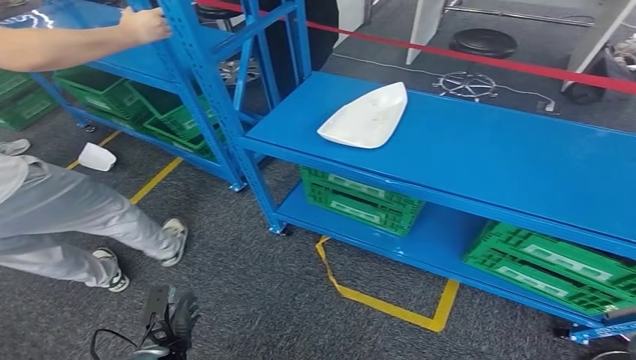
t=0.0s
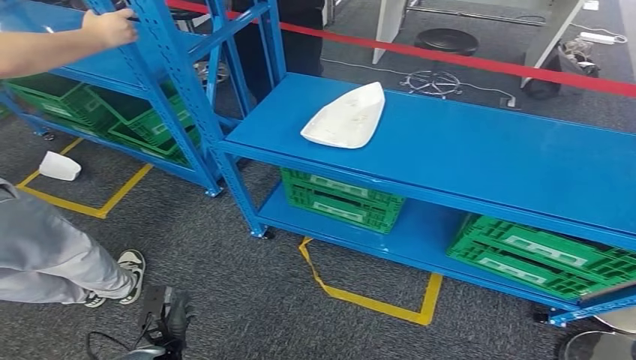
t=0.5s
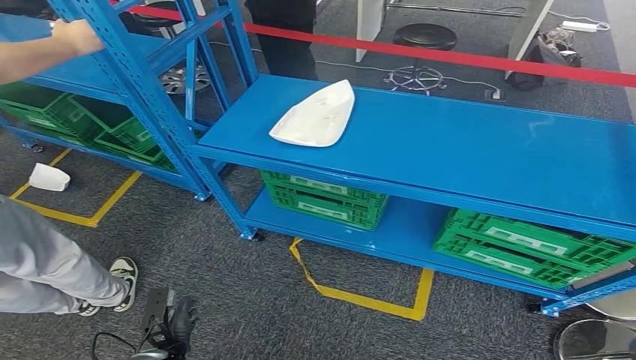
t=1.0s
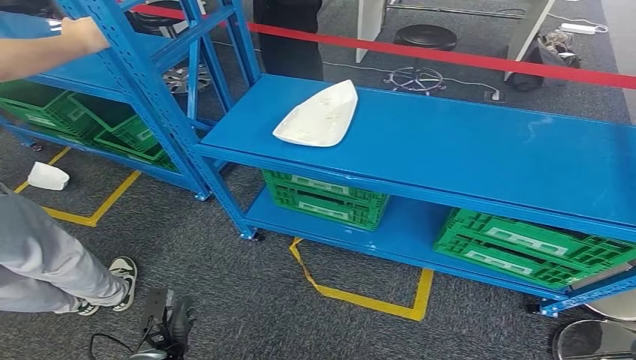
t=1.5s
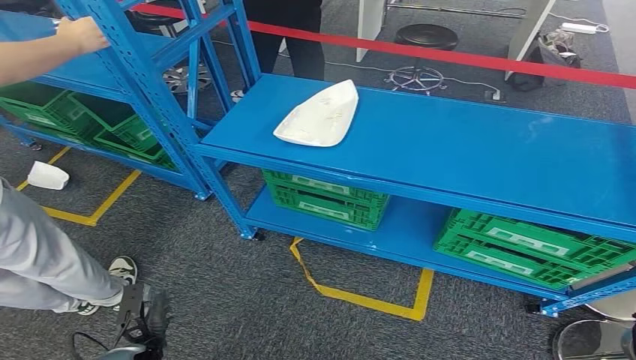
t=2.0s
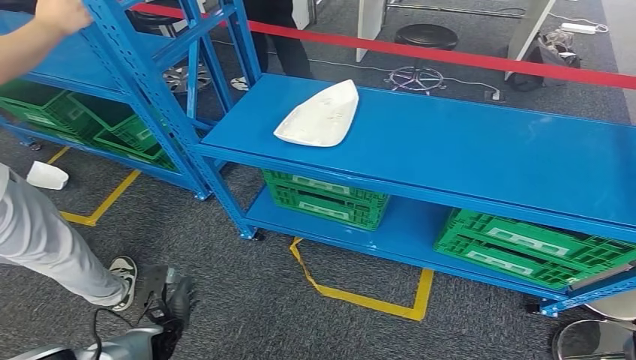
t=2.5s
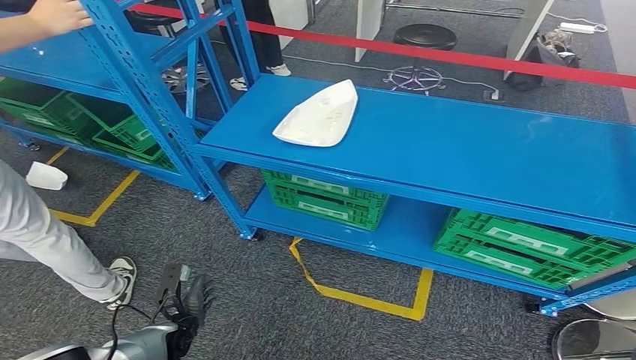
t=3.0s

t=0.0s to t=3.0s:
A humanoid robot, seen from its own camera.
Step, t=0.0s to t=3.0s: Return to the initial position at the workbench.
t=1.5s to t=3.0s: The left hand travels forward by about 5 cm.
